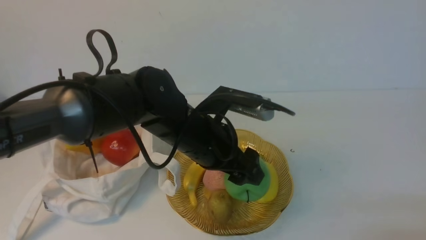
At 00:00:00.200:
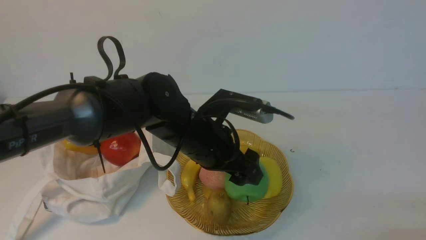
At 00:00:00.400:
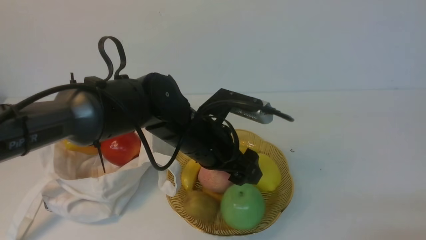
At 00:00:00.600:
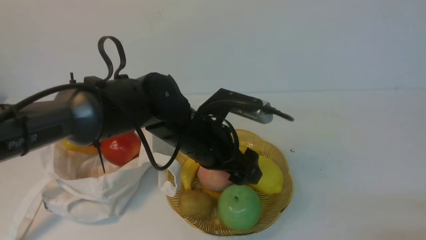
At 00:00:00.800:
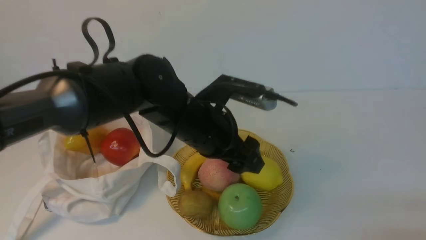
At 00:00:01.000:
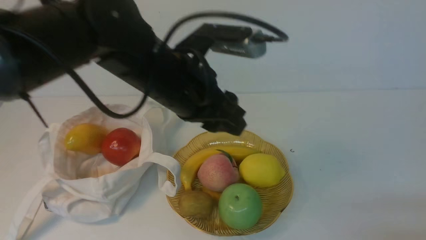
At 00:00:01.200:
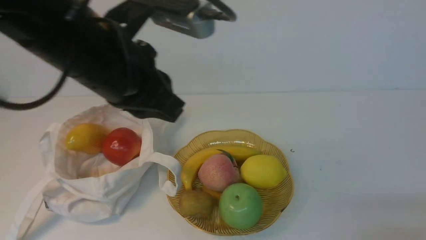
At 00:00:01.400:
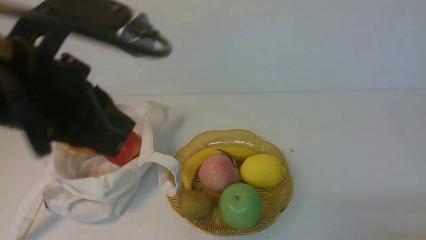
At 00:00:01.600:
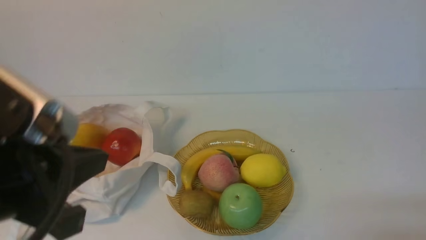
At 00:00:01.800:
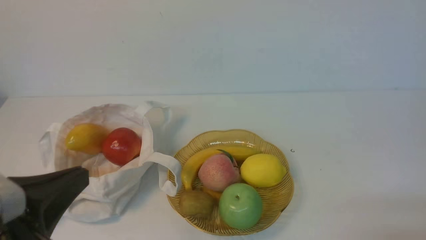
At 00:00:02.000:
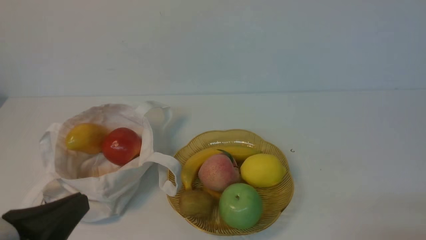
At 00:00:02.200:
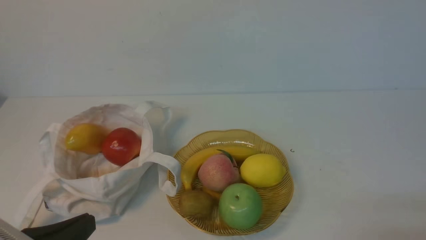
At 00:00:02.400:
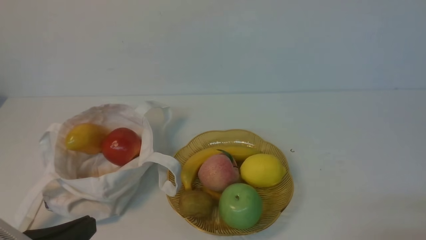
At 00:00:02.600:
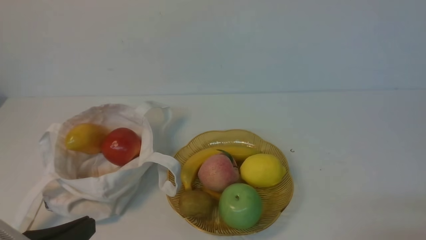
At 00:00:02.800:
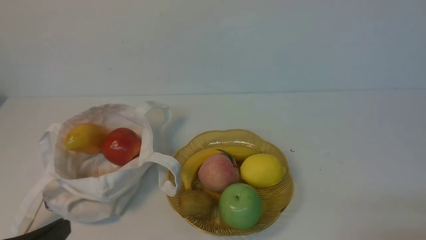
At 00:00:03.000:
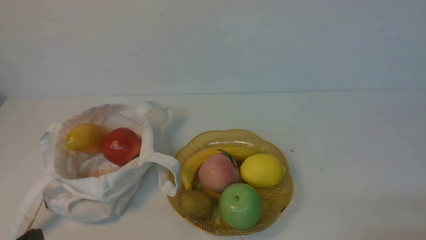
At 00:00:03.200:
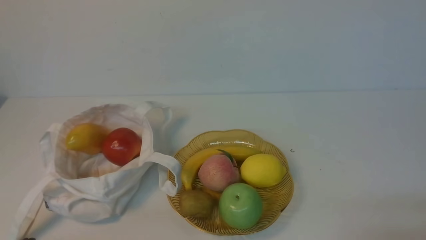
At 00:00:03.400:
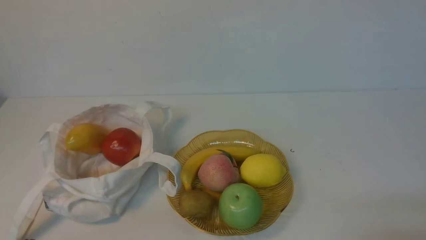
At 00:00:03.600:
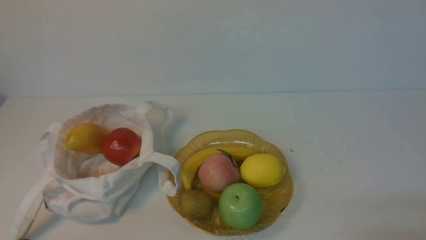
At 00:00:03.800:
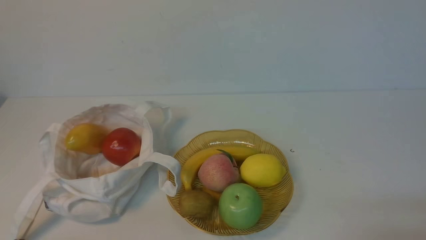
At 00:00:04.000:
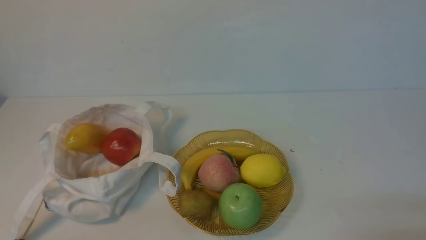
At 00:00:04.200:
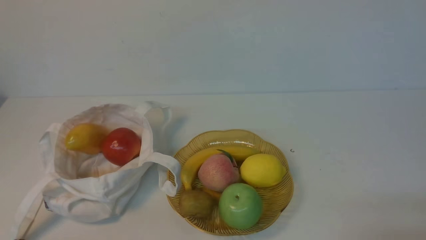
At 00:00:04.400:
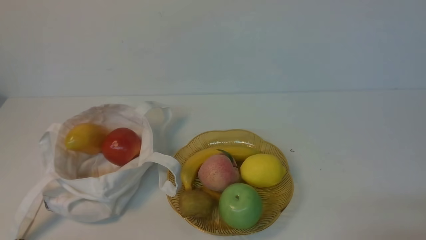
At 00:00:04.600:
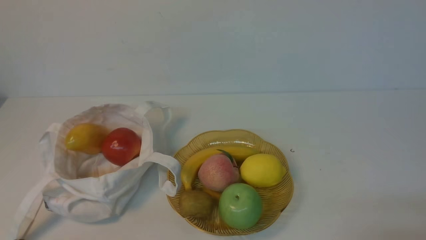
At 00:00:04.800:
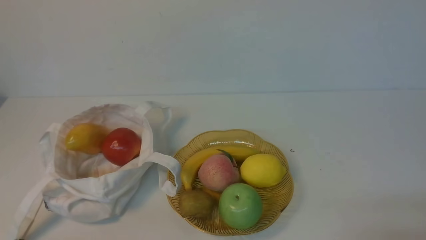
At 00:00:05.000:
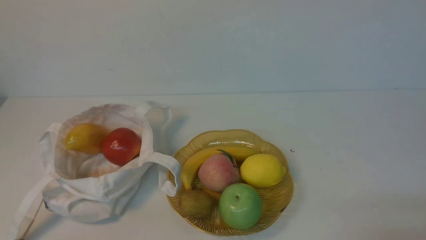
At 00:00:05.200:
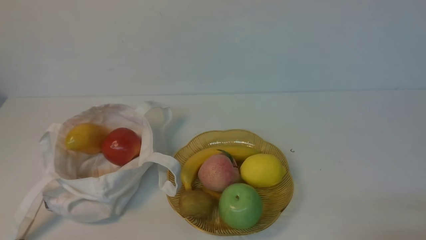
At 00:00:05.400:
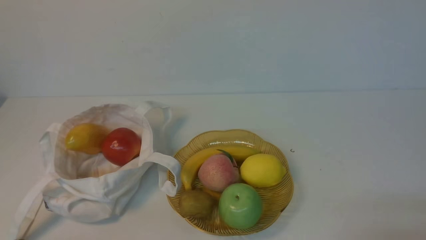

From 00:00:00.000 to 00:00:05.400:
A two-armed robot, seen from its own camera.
From 00:00:00.000 to 00:00:01.400: The left gripper travels upward, to the left and backward by about 20 cm, and closes up.
From 00:00:01.400 to 00:00:02.800: The left gripper travels downward, backward and to the left by about 25 cm.
From 00:00:02.800 to 00:00:04.000: The left gripper is displaced downward by roughly 5 cm.
From 00:00:04.000 to 00:00:05.400: Both grippers stay about where they are.
